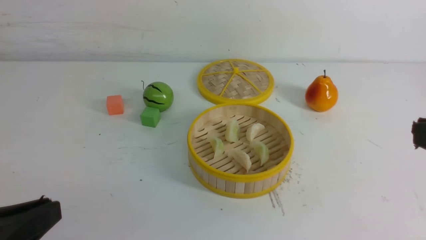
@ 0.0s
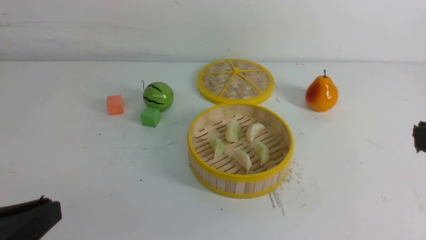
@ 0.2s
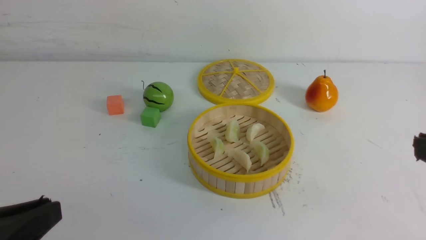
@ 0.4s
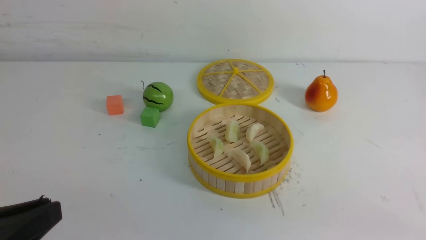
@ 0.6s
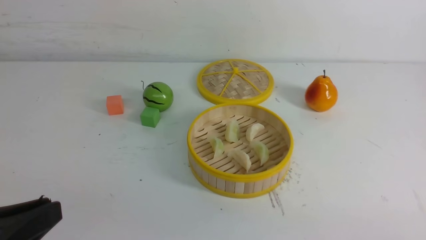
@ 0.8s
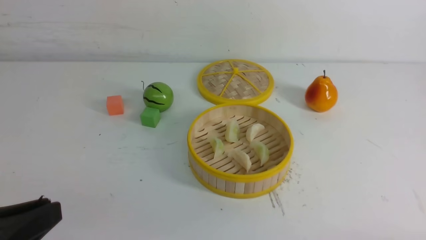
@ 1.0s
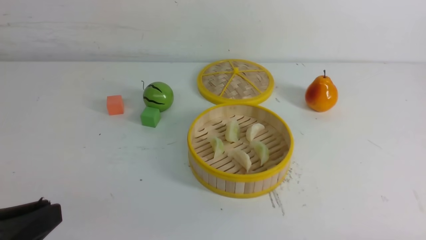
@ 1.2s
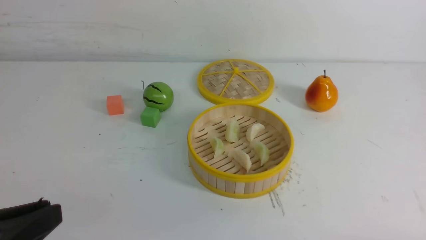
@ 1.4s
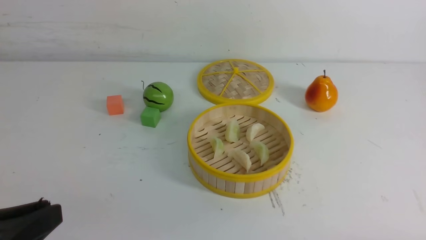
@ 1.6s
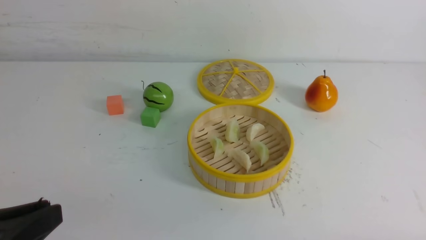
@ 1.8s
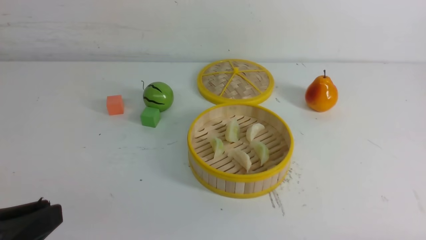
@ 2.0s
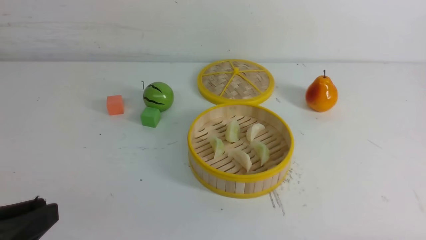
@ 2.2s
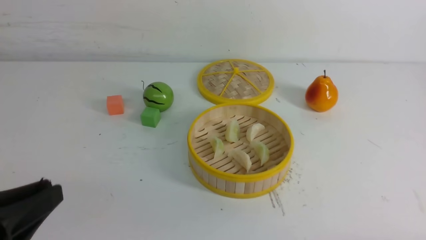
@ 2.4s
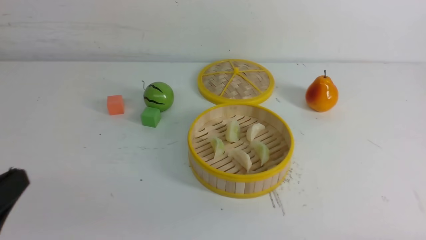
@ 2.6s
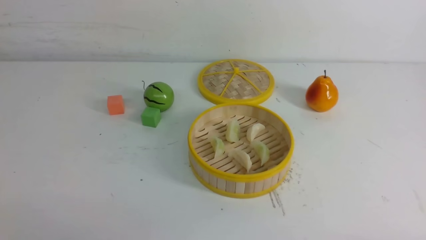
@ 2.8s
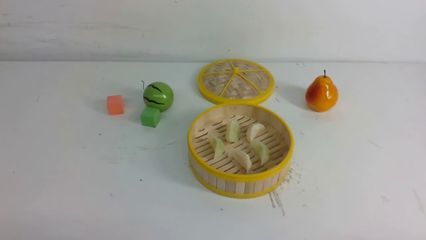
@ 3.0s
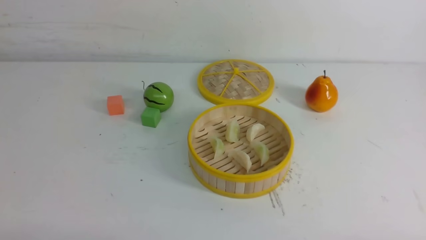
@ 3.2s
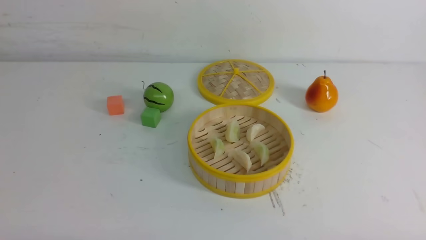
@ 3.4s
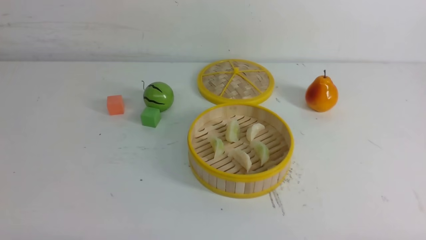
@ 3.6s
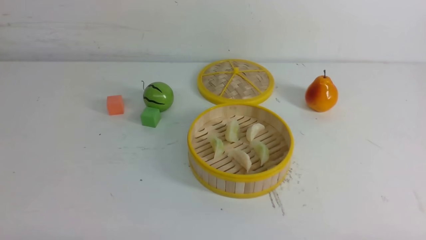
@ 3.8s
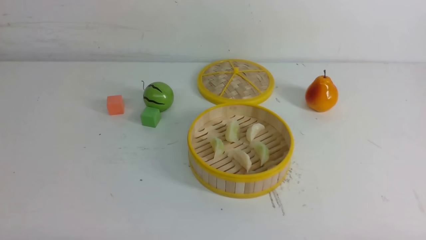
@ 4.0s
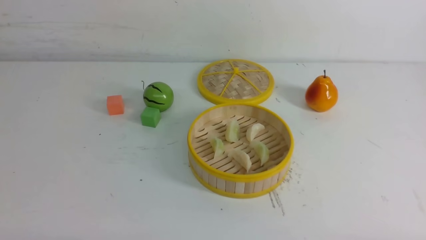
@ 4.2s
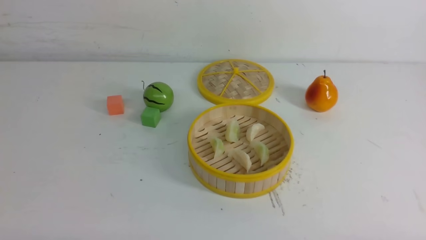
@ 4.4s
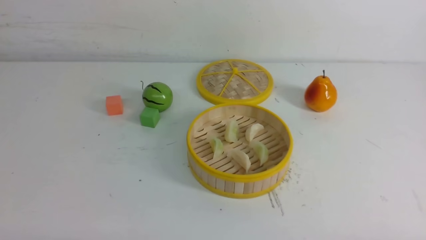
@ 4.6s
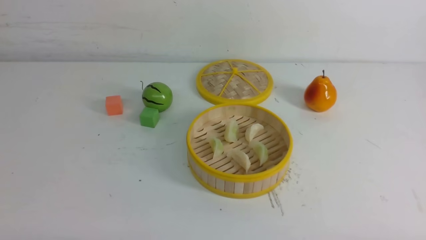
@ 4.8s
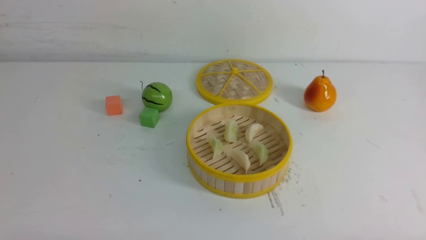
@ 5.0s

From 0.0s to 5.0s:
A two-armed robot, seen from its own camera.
Task of the whole recording: put the dumplings into the steamer on the white table.
From 1.6s to 3.4s: The left gripper shifts about 10 cm downward.
From 3.4s to 5.0s: Neither gripper changes place.
